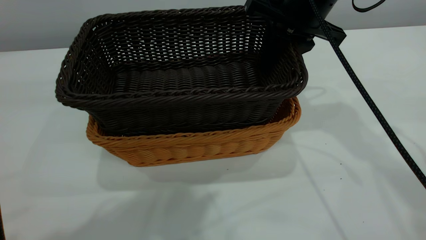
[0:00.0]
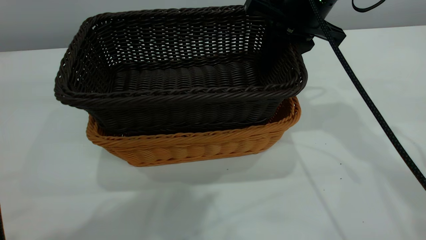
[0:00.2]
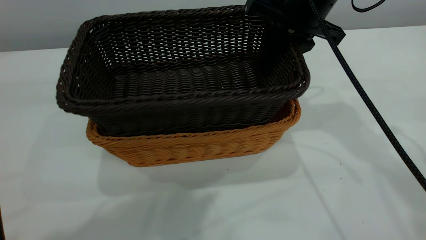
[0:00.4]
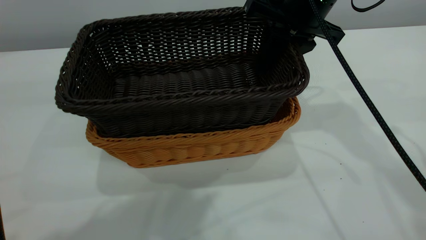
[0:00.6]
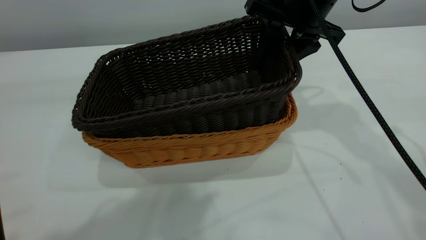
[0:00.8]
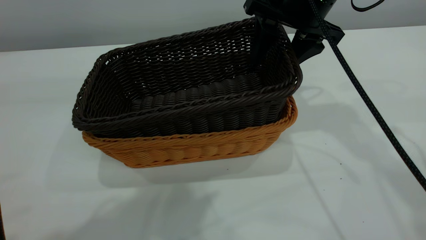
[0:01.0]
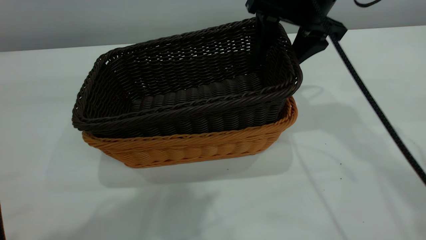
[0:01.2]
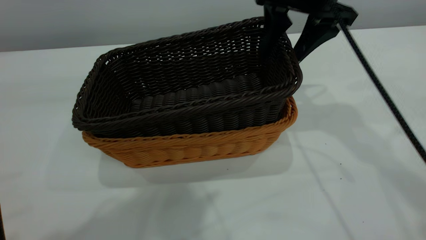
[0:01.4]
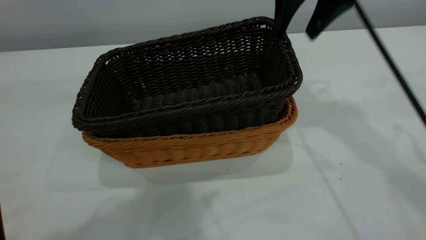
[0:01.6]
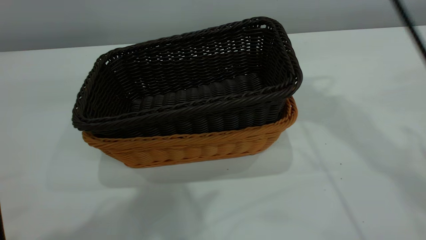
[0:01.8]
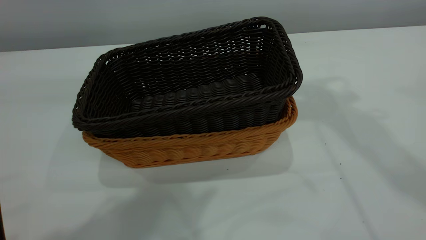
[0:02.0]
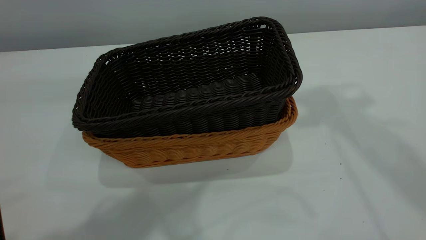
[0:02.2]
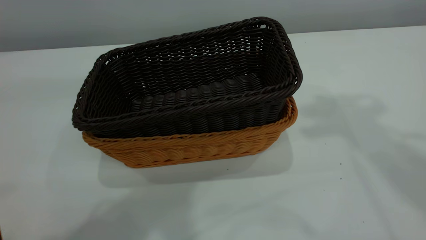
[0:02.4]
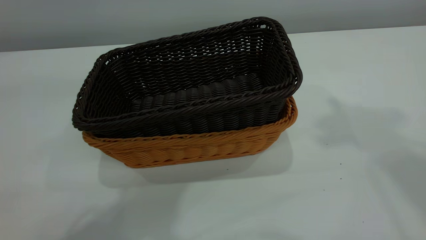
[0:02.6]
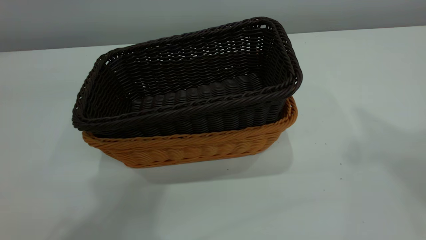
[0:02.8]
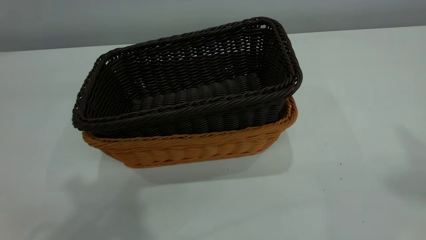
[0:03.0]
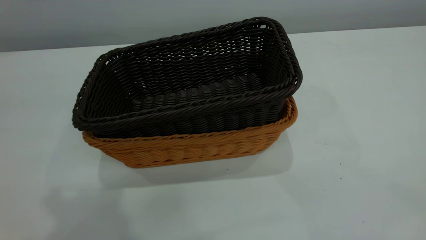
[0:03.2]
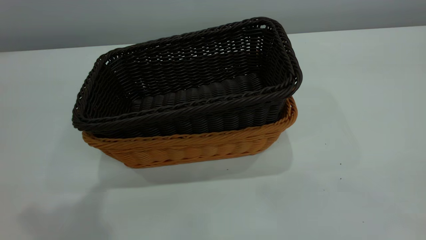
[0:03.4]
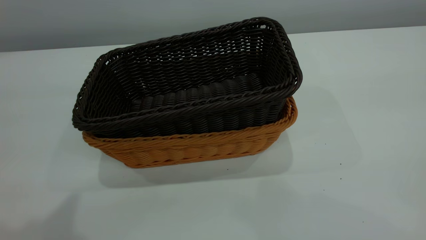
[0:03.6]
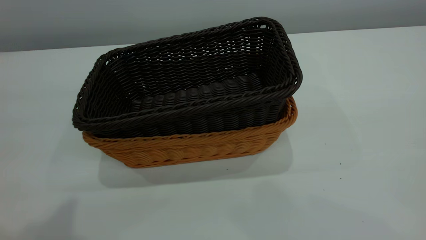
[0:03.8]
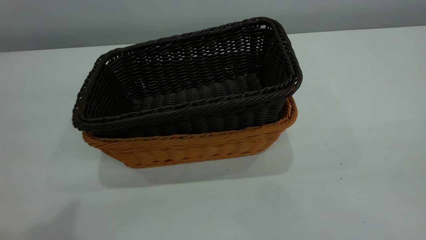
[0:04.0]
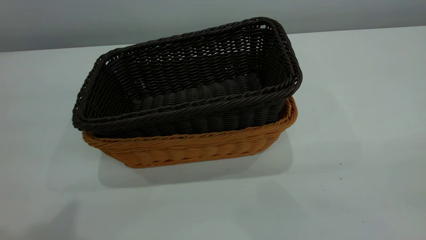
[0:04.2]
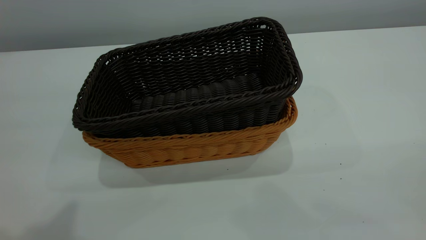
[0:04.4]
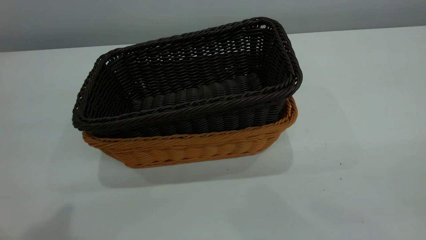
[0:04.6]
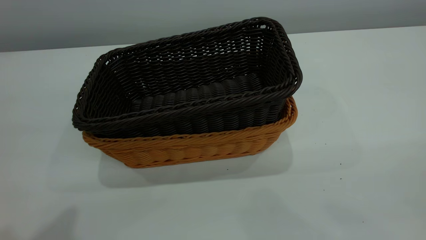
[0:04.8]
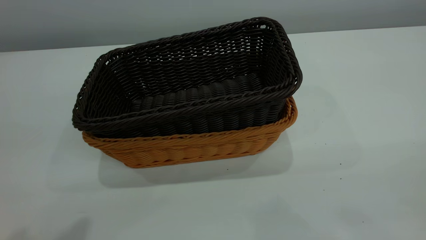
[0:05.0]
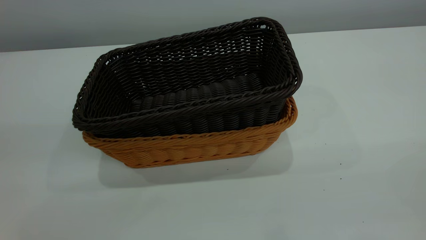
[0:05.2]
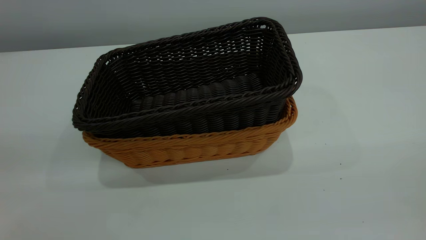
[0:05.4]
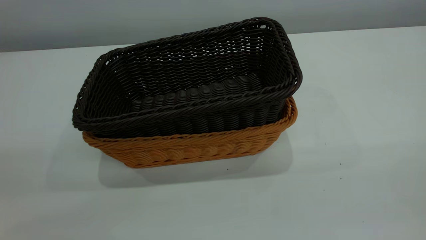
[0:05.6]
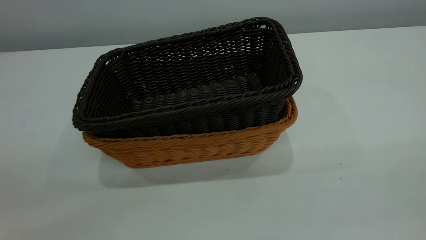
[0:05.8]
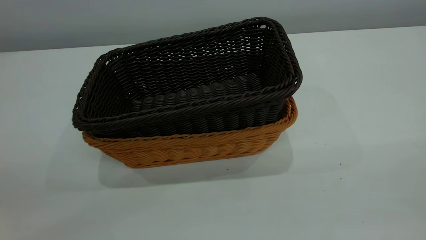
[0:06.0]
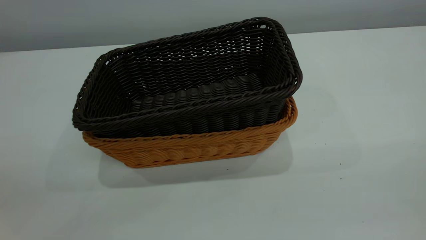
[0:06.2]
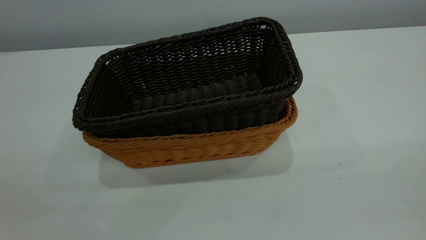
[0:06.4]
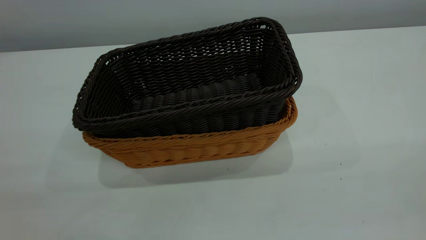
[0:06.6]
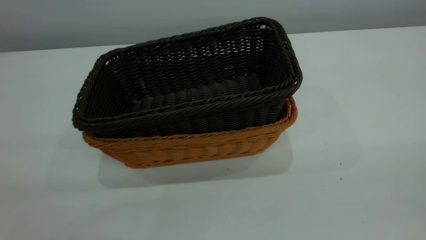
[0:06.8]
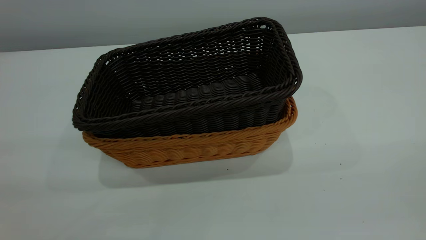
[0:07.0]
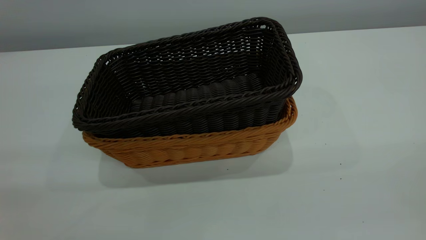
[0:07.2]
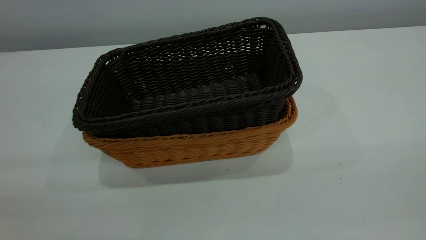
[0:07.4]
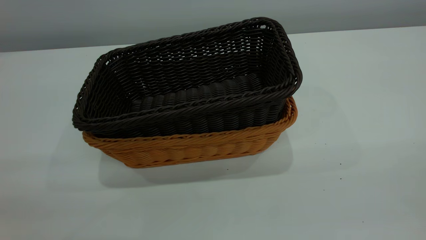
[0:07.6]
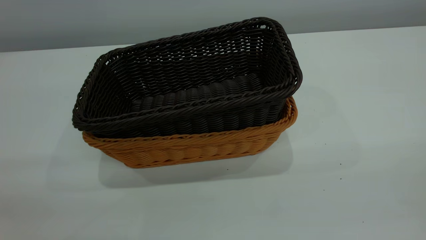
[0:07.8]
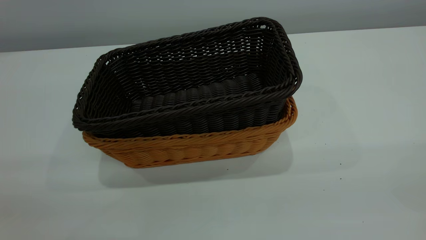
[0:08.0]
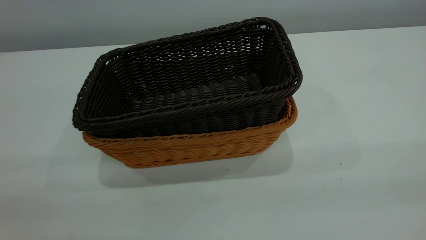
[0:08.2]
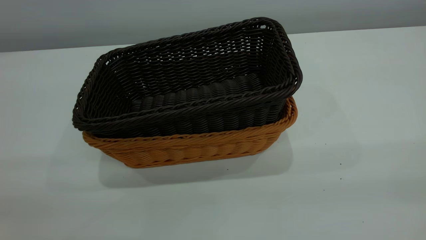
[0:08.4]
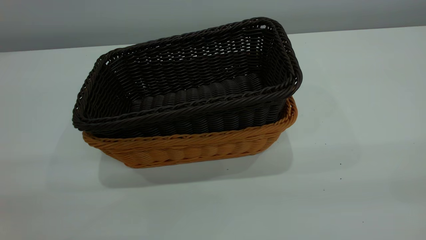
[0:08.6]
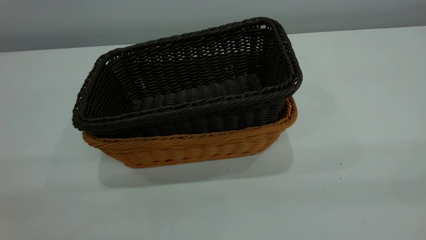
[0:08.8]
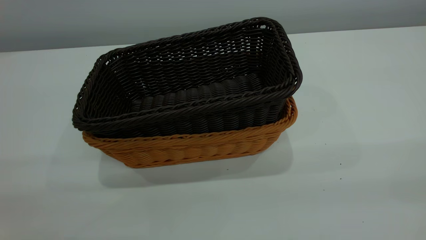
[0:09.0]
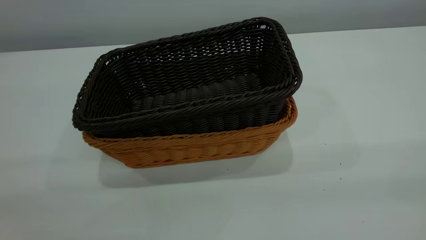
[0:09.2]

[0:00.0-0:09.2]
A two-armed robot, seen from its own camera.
Task of the whole recording: the left gripper grasp the brown basket and place it in the center of the table, the right gripper grasp the black basket and place it inside the brown one.
0:00.0 to 0:01.6: The right gripper is displaced upward by roughly 5 cm, and opens its fingers.
0:01.6 to 0:03.0: The left gripper shifts approximately 5 cm to the left, and closes. The right gripper shifts about 35 cm upward, backward and to the right, and closes its fingers.
0:03.0 to 0:04.6: The left gripper is displaced backward by about 5 cm.

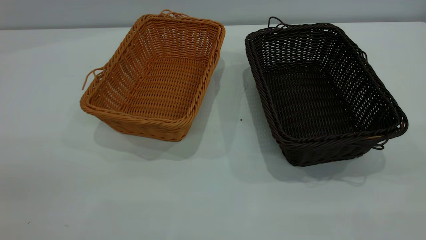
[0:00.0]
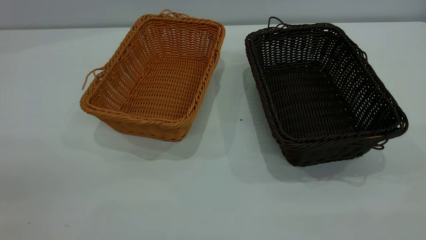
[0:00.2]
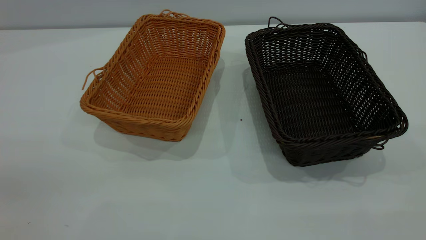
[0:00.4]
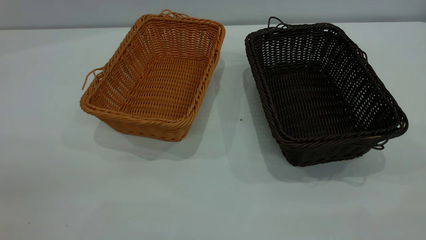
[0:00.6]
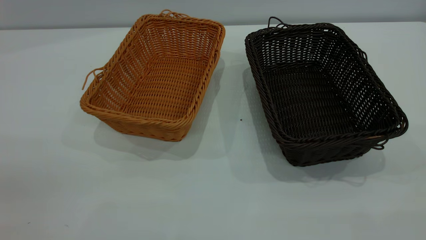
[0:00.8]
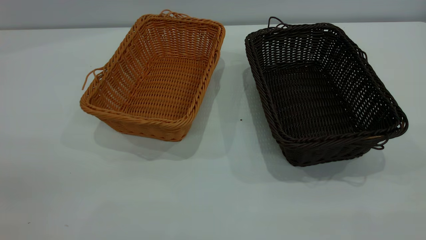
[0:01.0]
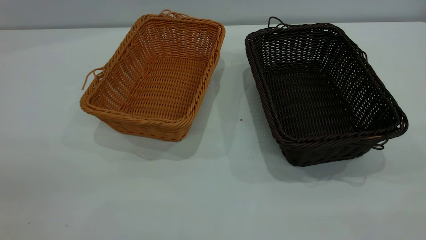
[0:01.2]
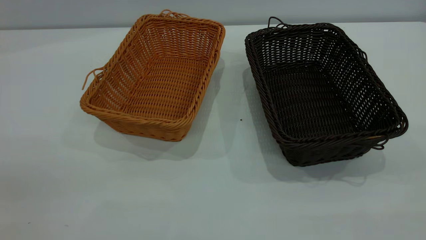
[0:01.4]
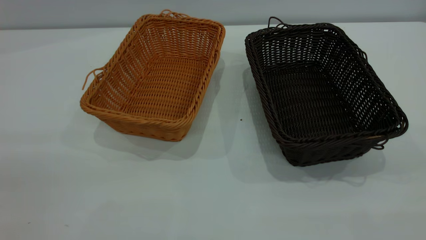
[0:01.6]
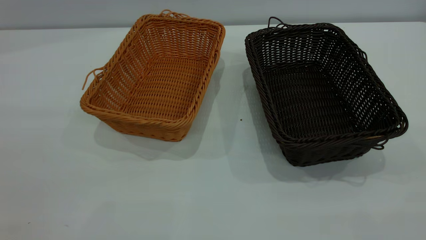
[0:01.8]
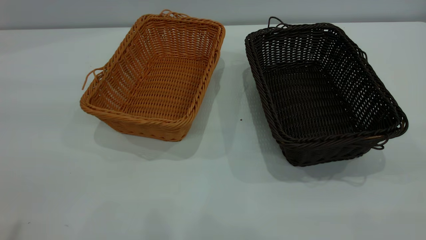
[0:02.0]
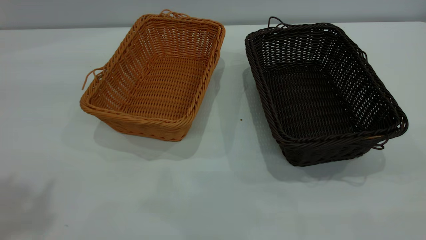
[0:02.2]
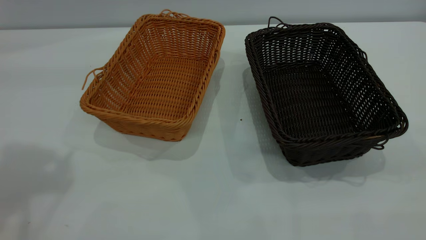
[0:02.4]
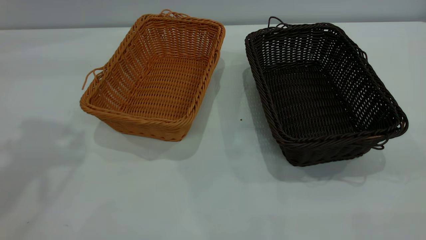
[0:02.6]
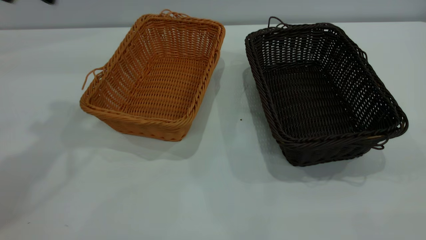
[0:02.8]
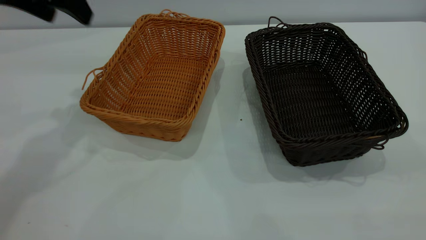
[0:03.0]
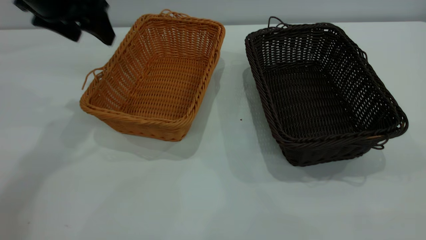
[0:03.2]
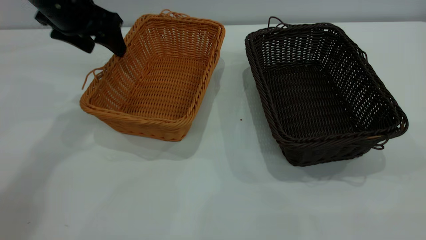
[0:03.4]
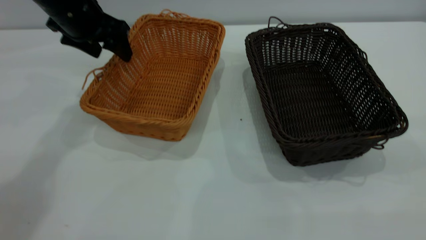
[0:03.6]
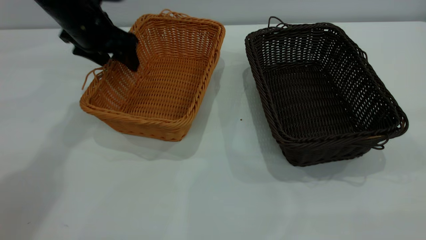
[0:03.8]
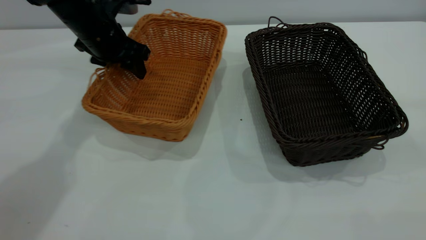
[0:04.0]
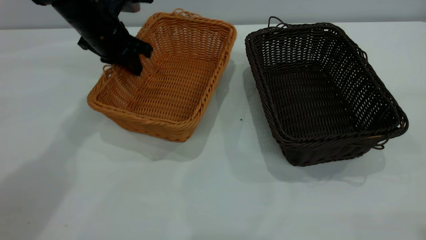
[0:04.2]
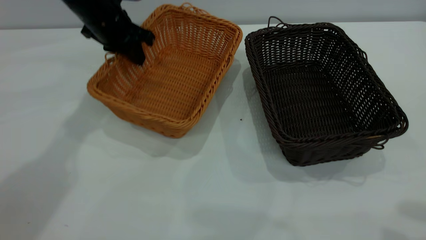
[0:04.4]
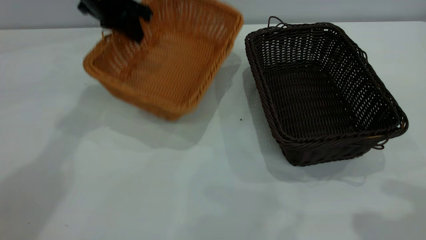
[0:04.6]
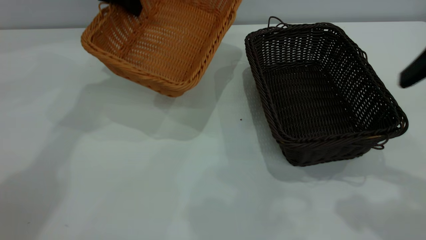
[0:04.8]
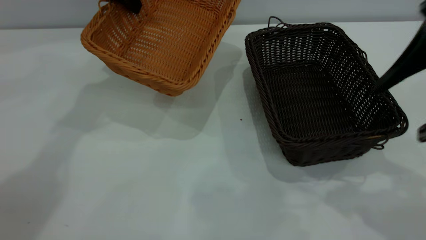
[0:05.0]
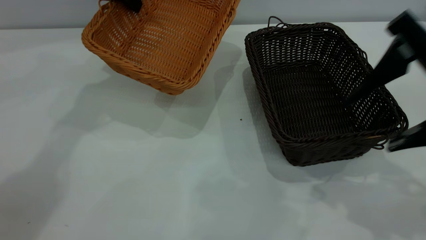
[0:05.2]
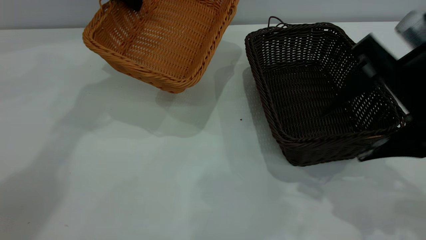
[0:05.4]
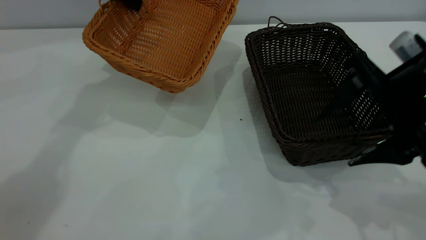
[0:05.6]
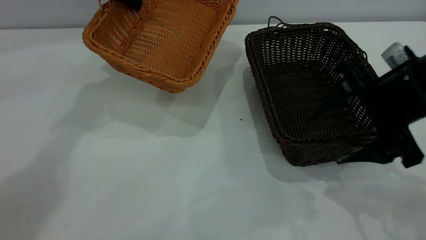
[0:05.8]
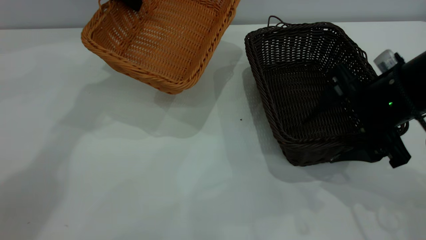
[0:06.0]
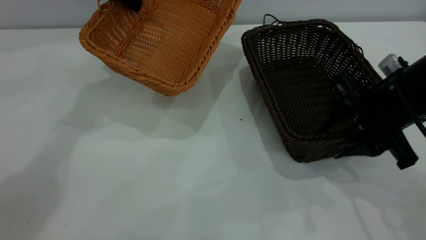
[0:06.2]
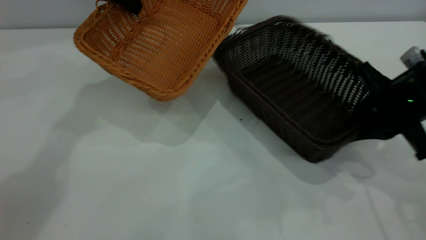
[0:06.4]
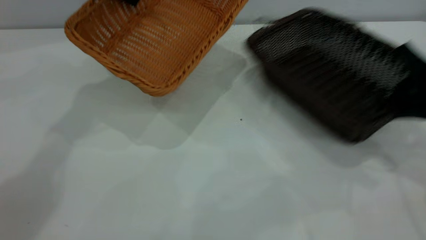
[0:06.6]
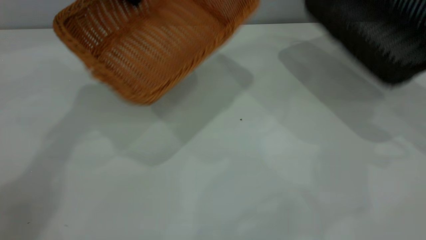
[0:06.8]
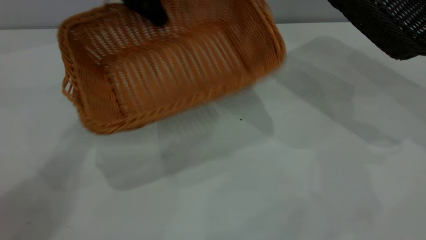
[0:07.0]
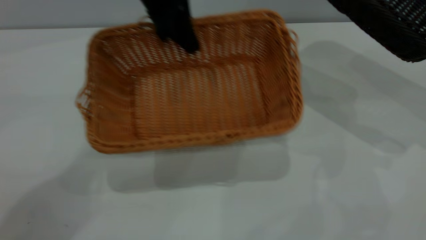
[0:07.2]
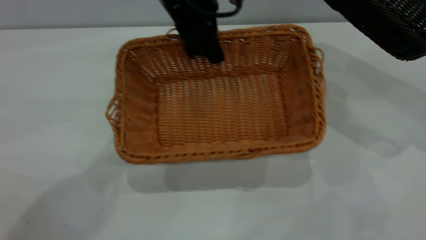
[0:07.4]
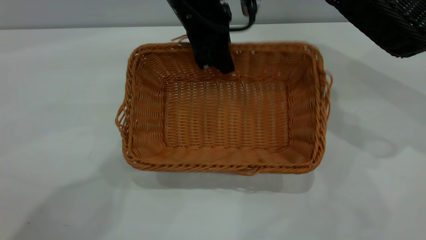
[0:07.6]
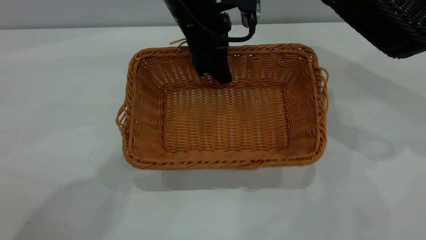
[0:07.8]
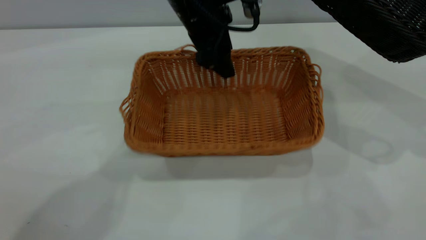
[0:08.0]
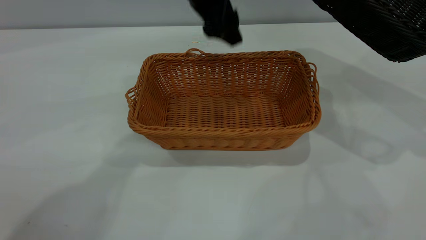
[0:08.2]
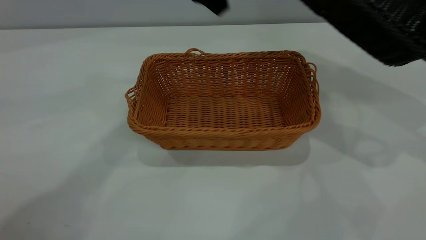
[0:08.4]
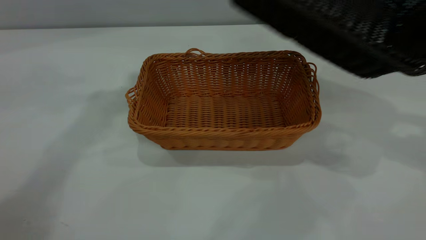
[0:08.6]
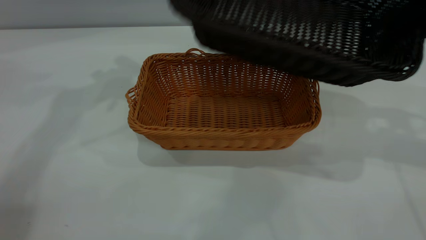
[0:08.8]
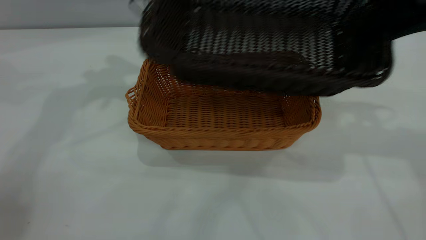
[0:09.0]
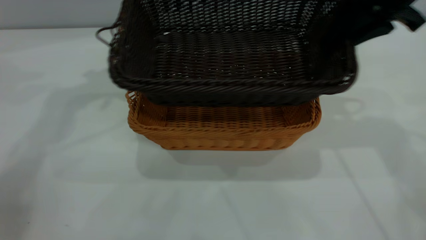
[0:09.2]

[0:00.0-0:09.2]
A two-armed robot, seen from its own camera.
Task of the whole recording: the left gripper grasp the brown basket and place it in the center of the table, the right gripper grasp the black basket and place it inside the brown one.
Step, 0:00.0 to 0:06.4: Pick up the light basket with the right gripper.
Step, 0:06.6 to 0:08.0: Place the light-colored basket in the center.
0:01.6 to 0:03.0: The left gripper goes approximately 40 cm forward.
0:03.0 to 0:04.6: The right gripper moves forward, roughly 15 cm; the left gripper moves forward, downward and to the right, about 15 cm, and closes its fingers.
0:04.6 to 0:06.2: The right gripper heads downward and forward, covering about 20 cm, and closes up.
0:06.2 to 0:07.6: The left gripper travels to the right and backward by some 20 cm. Meanwhile the right gripper moves to the right and upward, some 20 cm.
0:07.6 to 0:09.2: The left gripper goes about 25 cm to the left and upward, and opens; the right gripper is displaced to the left by approximately 20 cm.
